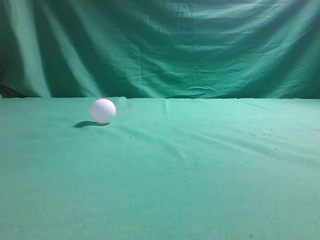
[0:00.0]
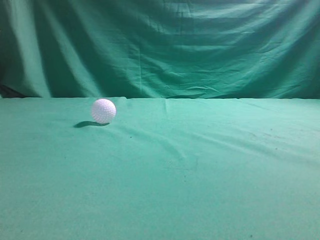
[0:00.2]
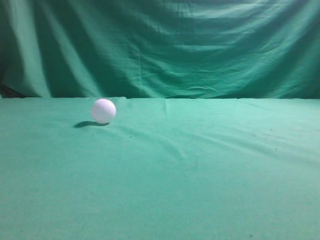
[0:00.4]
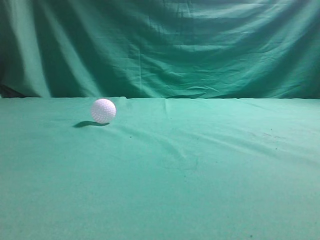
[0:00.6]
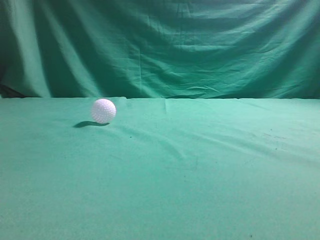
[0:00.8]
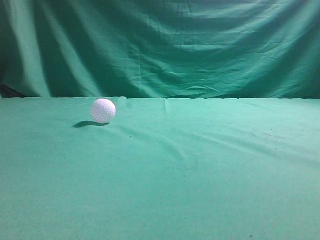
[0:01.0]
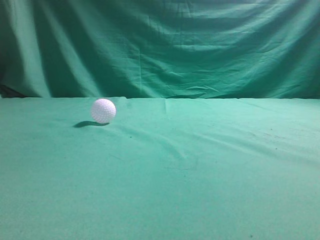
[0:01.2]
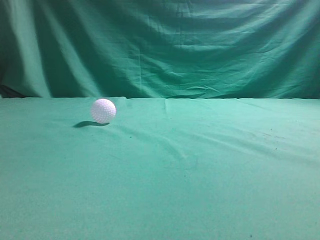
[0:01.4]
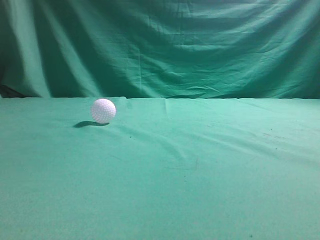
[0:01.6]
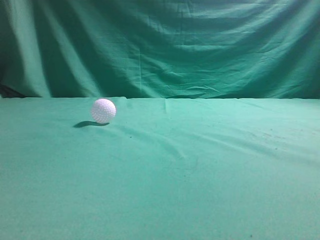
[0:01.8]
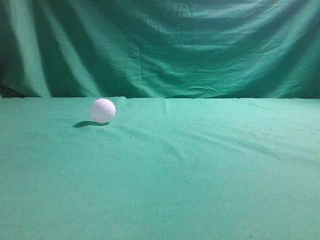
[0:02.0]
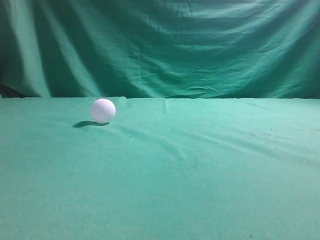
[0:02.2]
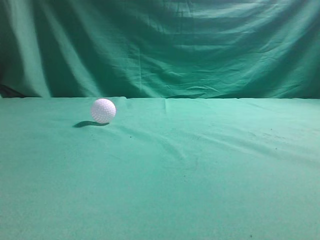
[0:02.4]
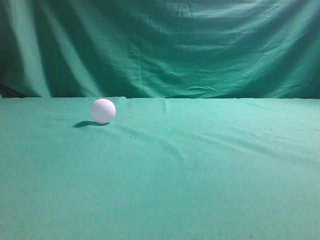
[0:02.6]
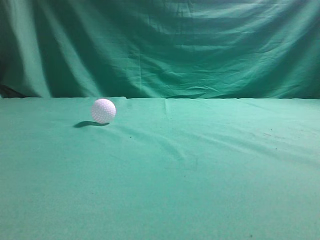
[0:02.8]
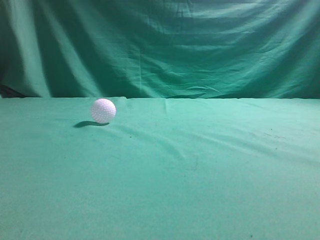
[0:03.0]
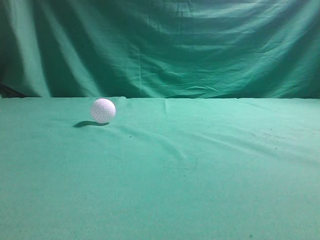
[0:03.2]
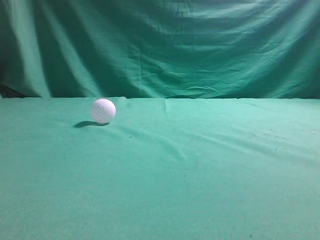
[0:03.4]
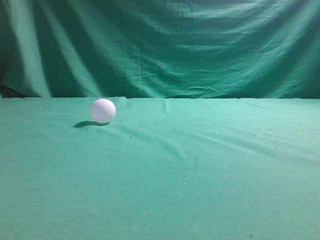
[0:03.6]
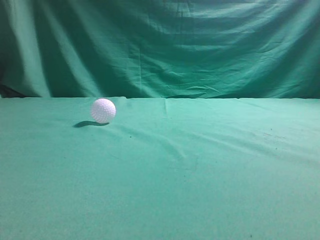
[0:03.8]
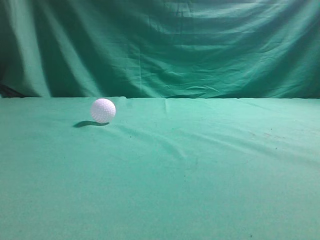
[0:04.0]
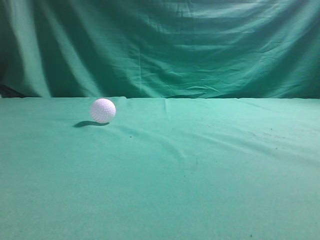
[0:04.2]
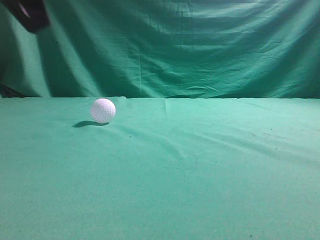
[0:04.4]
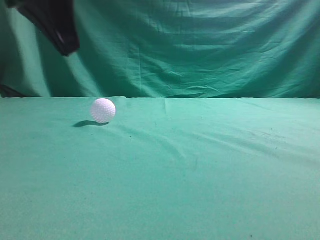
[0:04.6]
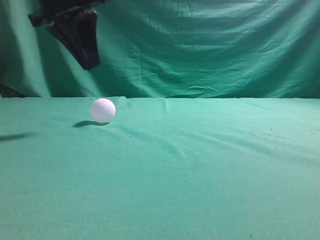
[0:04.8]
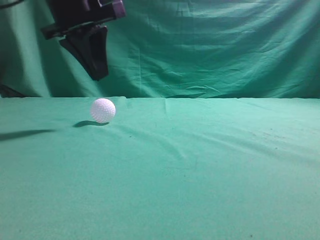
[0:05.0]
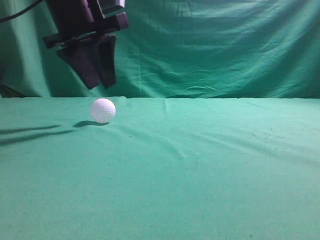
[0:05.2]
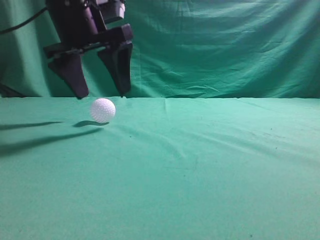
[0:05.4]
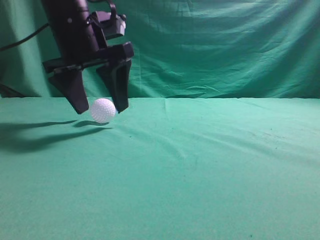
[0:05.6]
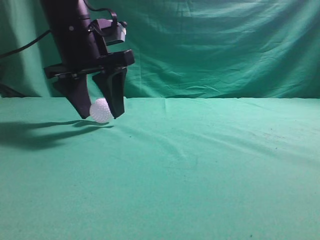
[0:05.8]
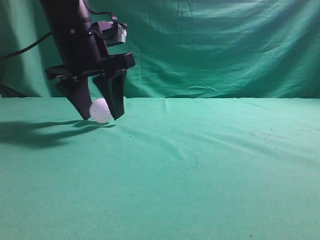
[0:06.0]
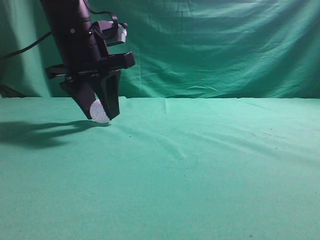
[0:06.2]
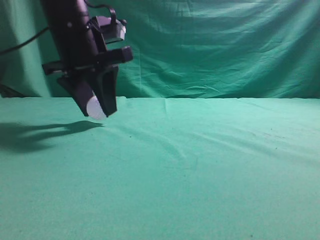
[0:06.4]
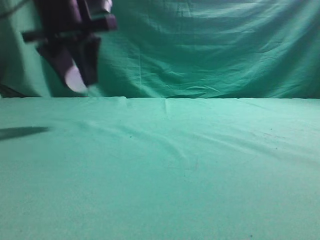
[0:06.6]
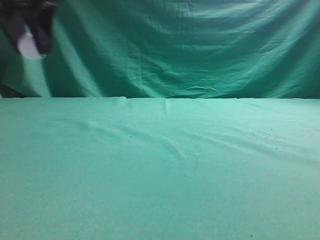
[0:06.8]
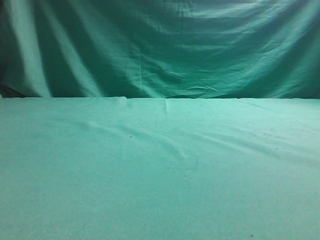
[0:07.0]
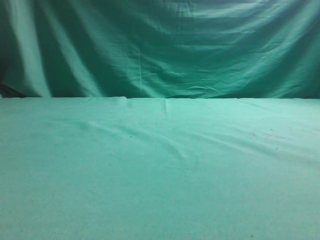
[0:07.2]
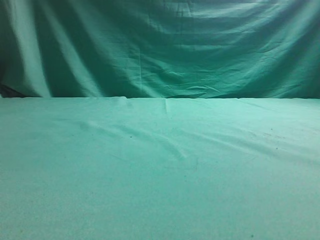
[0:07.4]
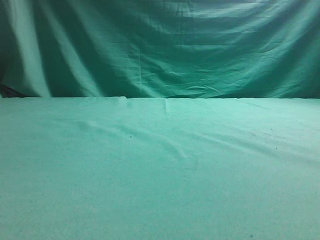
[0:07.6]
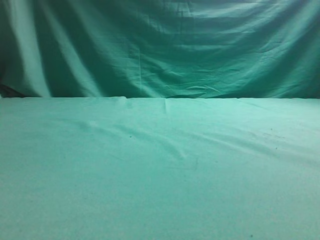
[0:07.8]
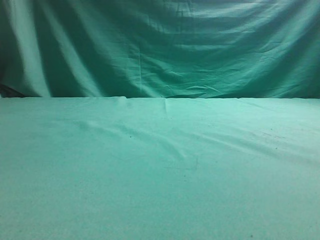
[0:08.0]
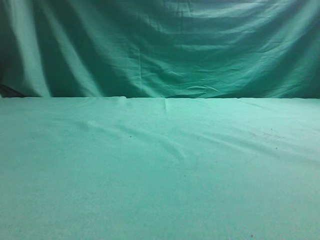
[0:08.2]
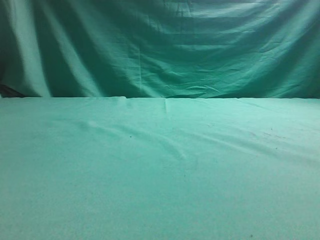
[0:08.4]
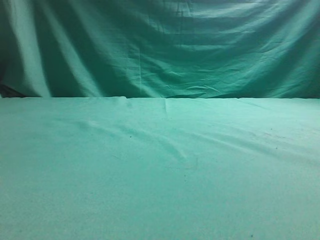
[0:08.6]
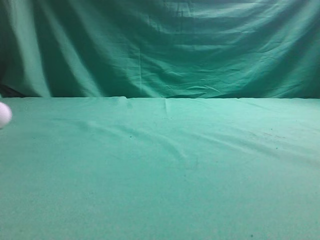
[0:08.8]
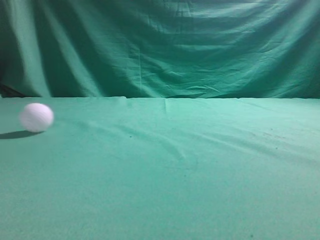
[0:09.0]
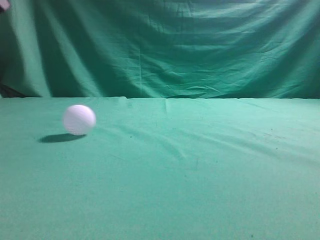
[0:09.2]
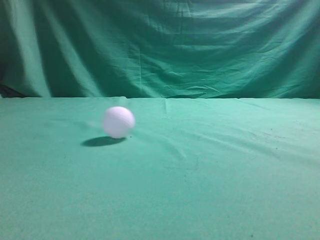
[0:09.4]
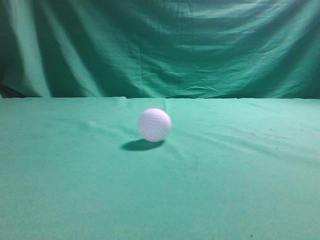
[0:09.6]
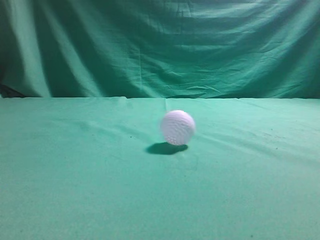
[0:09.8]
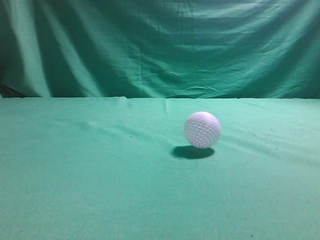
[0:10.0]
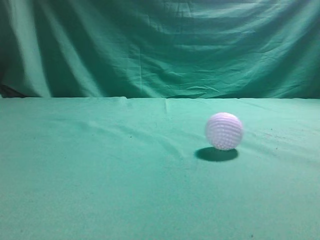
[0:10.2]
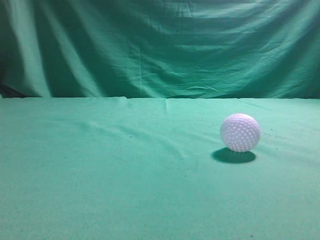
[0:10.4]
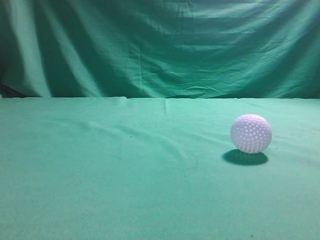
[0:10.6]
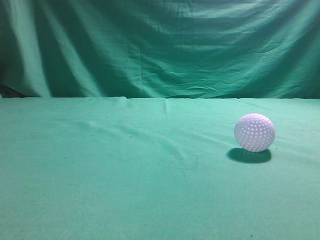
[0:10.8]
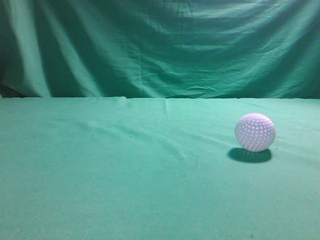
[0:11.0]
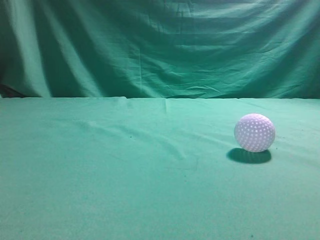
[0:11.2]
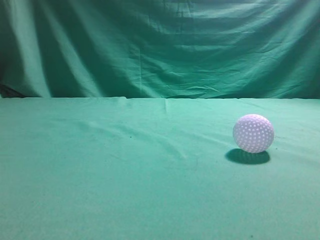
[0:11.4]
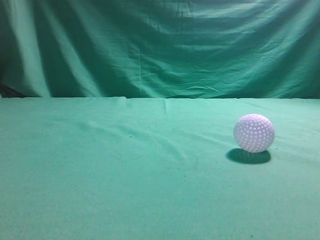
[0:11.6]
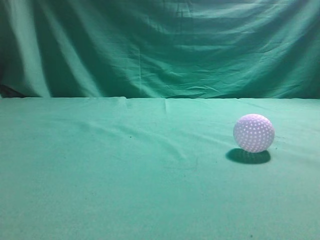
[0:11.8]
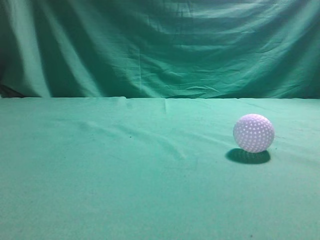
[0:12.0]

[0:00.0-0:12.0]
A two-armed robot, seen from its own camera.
Task of the whole recording: pick up the ball and place it on the plate, then pick up the ball from the plate and put it in the center of the table.
Step, 0:00.0 to 0:06.4: Grab the spherical object with your left arm.
Step, 0:06.8 to 0:08.2: Place the sphere on the white object.
0:03.0 to 0:04.4: The left gripper goes approximately 20 cm forward and to the right.
0:04.4 to 0:06.0: The left gripper heads forward, downward and to the right, covering about 15 cm, and opens up.
0:06.0 to 0:07.6: The left gripper moves to the left, roughly 25 cm.
0:07.6 to 0:09.0: The left gripper moves some 5 cm, and opens and closes again.
0:09.0 to 0:10.4: The left gripper heads backward, covering some 30 cm.
0:10.4 to 0:12.0: The right gripper travels upward, forward and to the left by some 15 cm.

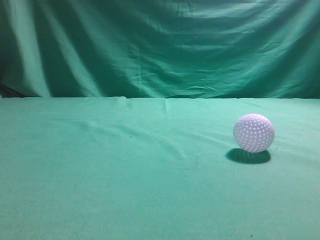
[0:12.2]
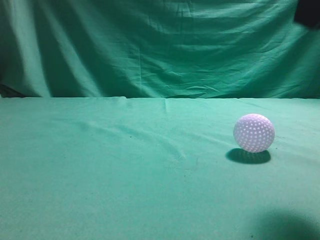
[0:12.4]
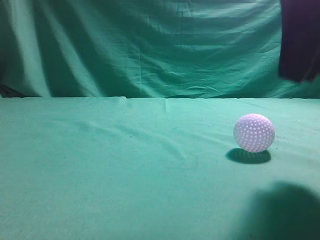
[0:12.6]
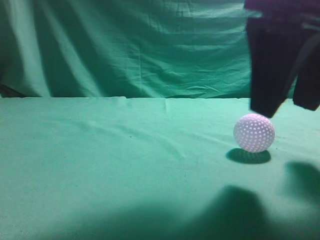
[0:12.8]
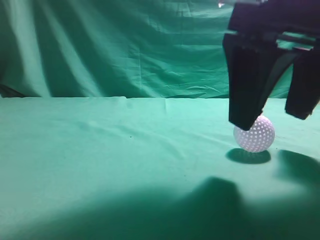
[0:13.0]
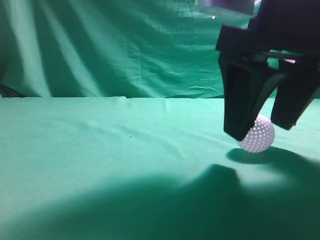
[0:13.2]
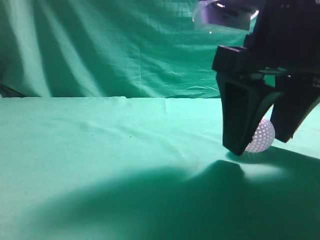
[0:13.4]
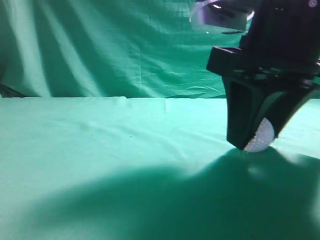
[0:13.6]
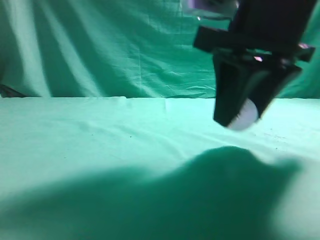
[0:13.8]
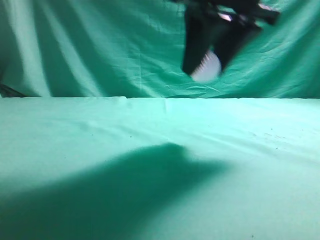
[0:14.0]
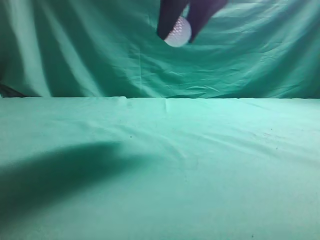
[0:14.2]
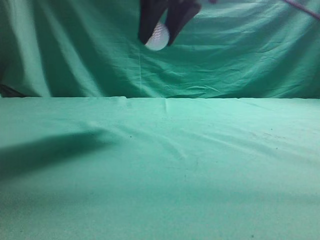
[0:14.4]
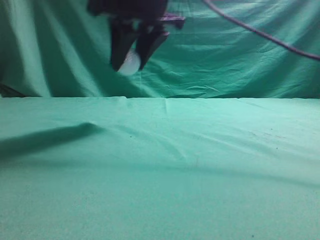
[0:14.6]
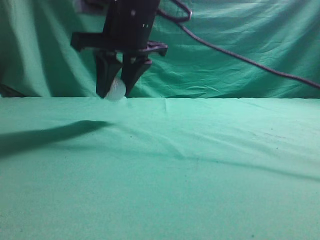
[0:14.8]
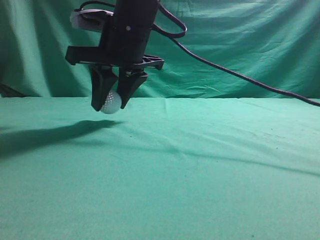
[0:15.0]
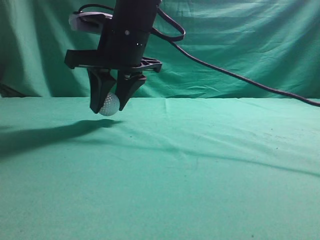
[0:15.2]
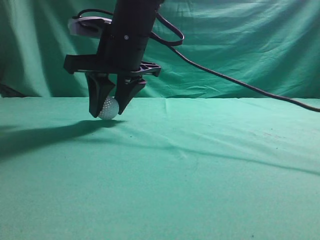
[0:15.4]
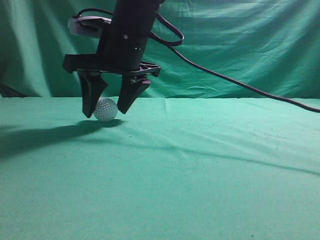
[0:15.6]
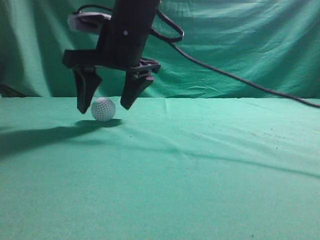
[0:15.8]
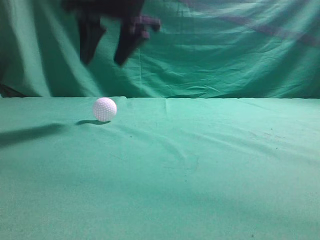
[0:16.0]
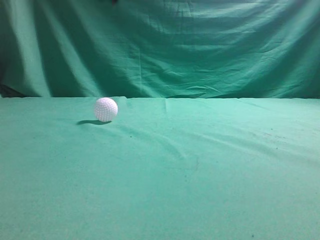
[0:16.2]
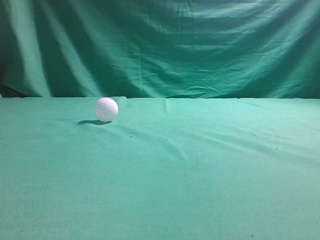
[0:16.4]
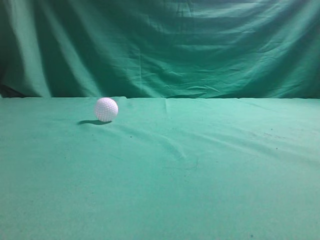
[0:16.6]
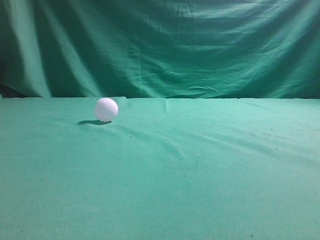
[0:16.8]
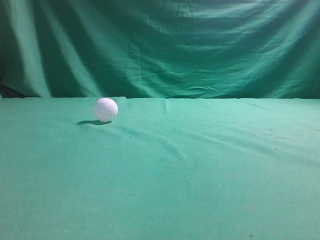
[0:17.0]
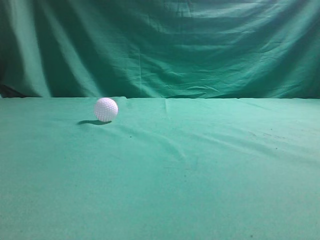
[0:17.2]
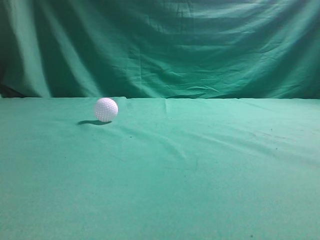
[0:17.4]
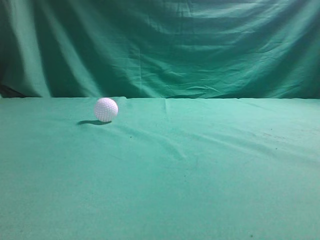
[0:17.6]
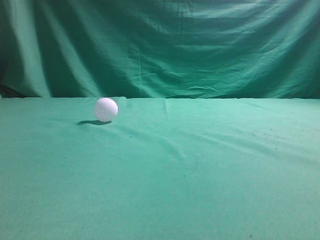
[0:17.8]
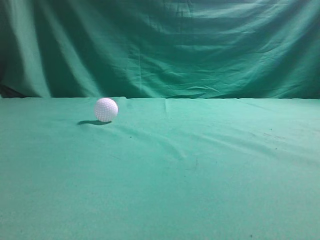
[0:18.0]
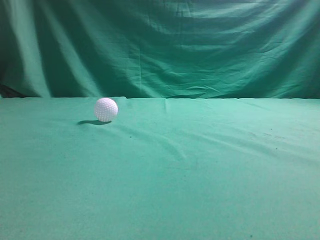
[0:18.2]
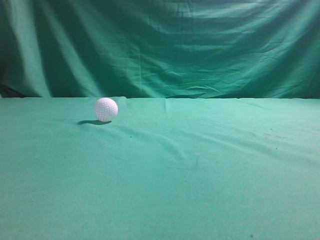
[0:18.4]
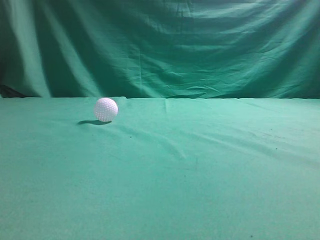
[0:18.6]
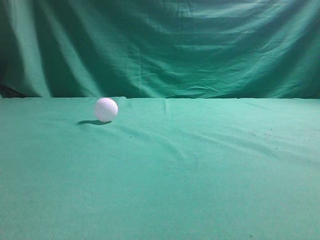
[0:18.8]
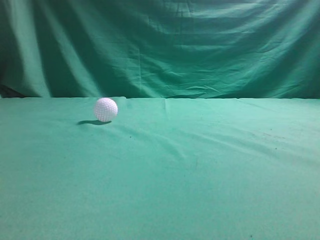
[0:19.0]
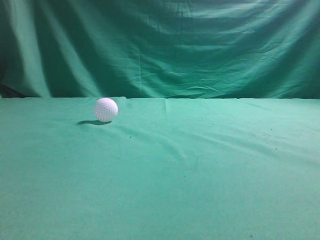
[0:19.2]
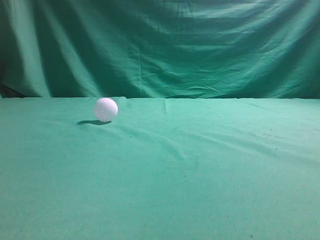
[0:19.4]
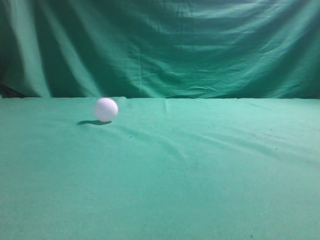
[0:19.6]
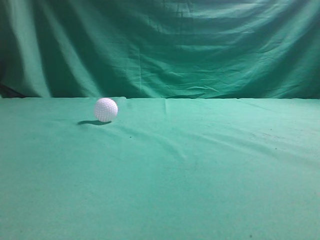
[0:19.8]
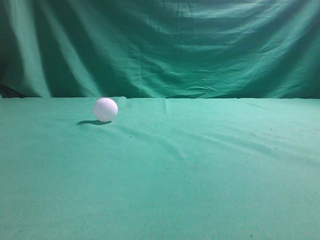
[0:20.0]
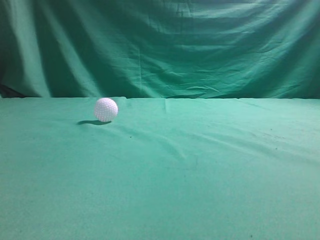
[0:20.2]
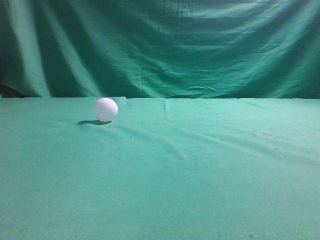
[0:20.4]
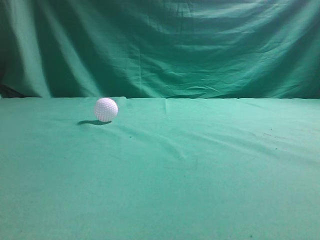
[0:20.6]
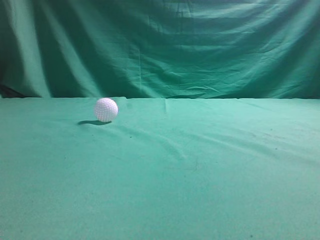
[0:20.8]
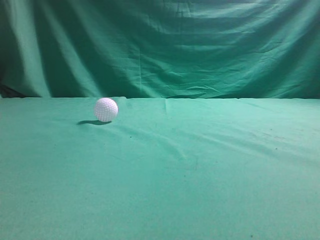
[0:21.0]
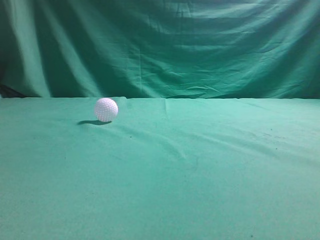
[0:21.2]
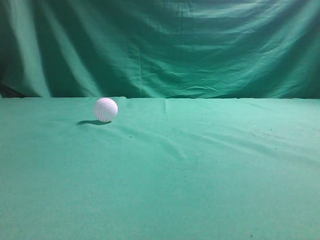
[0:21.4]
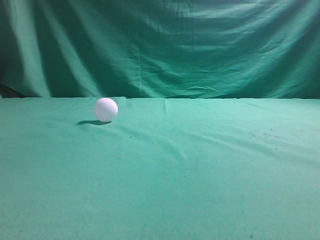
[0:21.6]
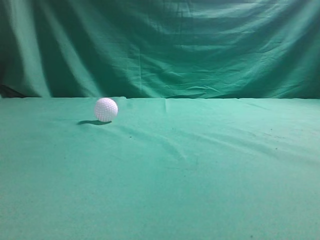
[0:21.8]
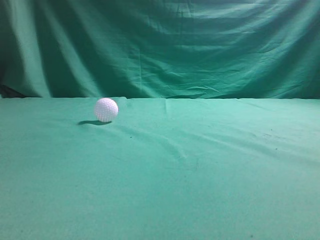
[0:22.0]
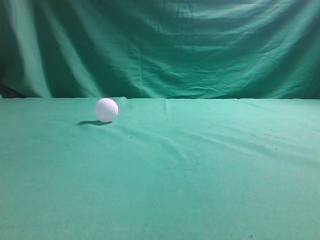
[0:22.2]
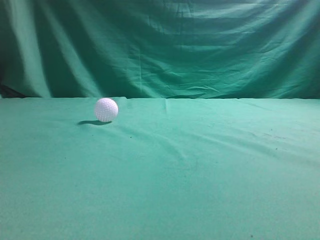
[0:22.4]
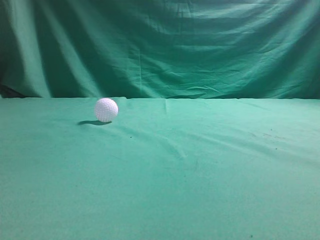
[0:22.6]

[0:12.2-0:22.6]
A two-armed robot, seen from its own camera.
Task of the whole recording: pick up the ball and place it on the plate, then pick up the ball from the plate and put it in the center of the table.
Step, 0:14.0 to 0:15.8: Put the picked-up object on the table.
0:12.2 to 0:13.6: The right gripper travels downward, to the left and forward by roughly 15 cm, and opens up.
0:13.6 to 0:15.2: The right gripper shifts about 20 cm to the left and forward.
0:15.2 to 0:16.6: The right gripper shifts some 30 cm upward, and closes up.
